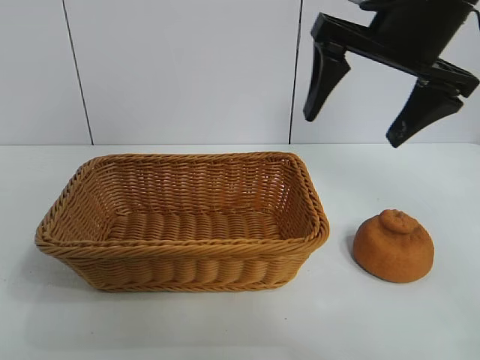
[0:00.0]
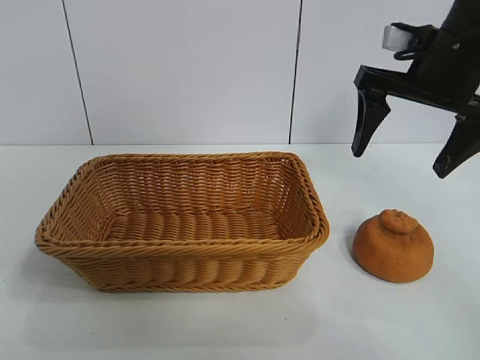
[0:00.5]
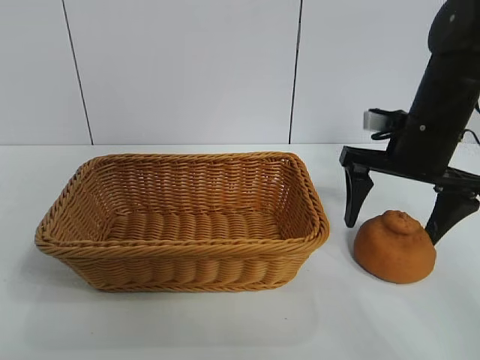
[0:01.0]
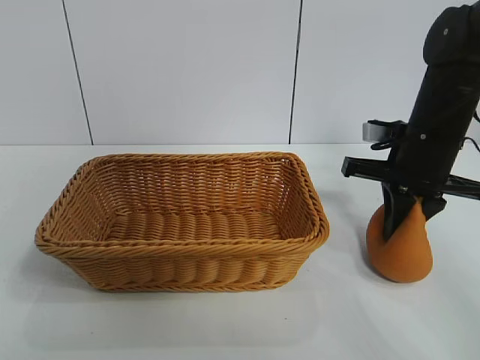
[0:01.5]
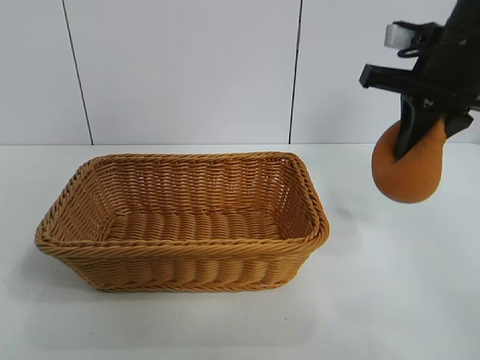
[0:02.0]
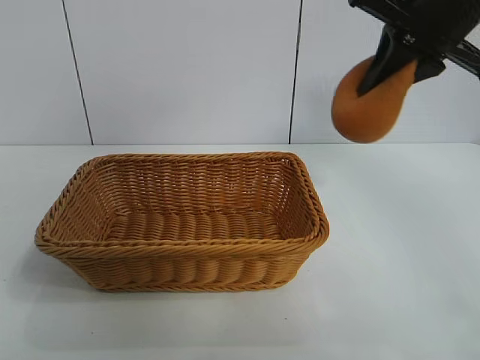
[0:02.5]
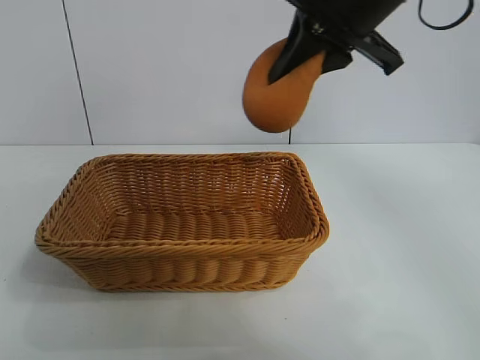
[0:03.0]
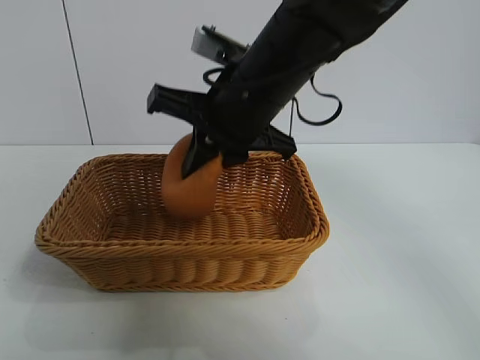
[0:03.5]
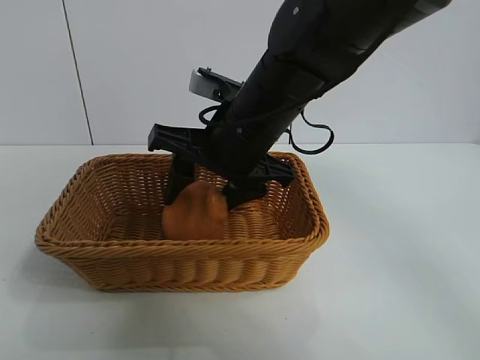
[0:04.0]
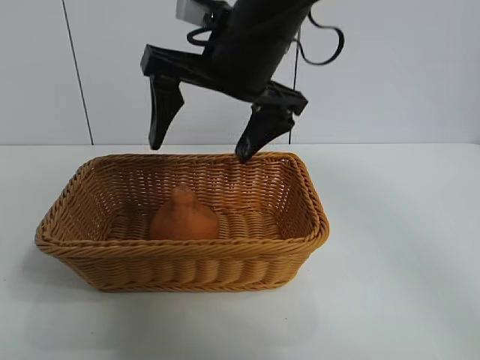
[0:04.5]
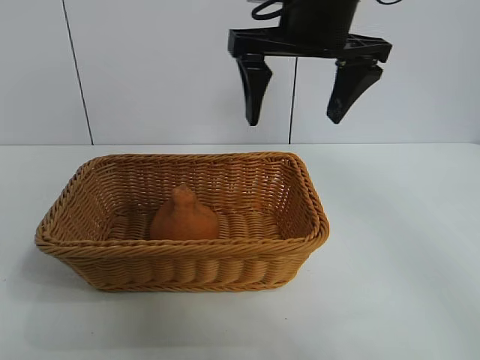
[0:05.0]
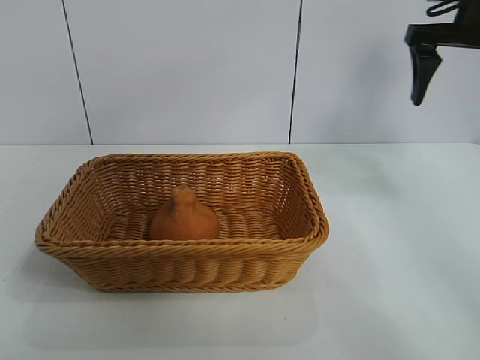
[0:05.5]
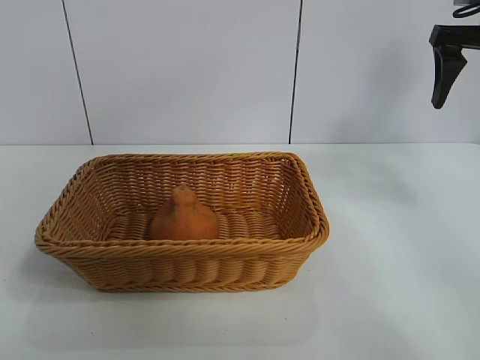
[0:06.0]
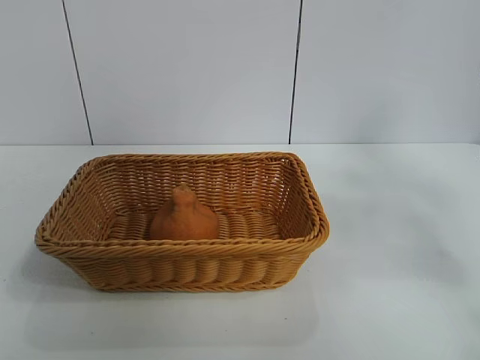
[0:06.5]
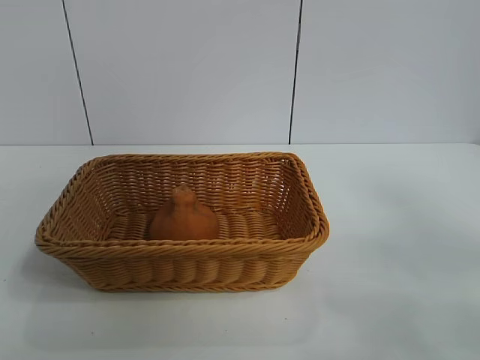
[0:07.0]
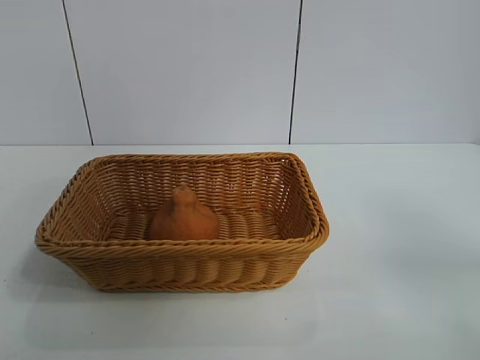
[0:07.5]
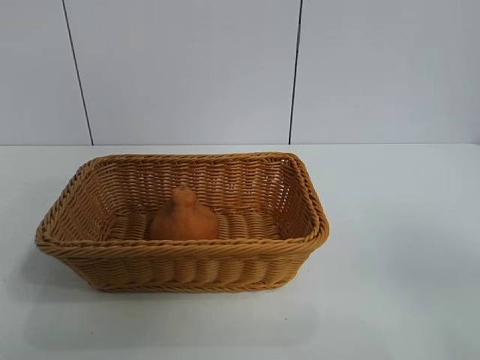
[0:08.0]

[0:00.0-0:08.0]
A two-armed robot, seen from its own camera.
Task of the whole recording: pick up the orange and put it into the basket.
Step, 0:02.0 to 0:04.0: Place the orange in the basket with right gripper.
